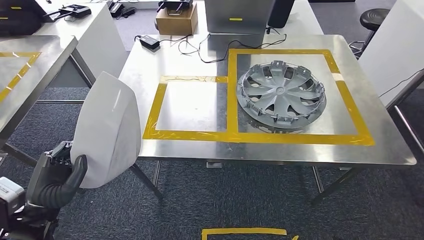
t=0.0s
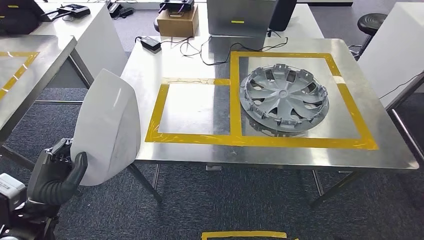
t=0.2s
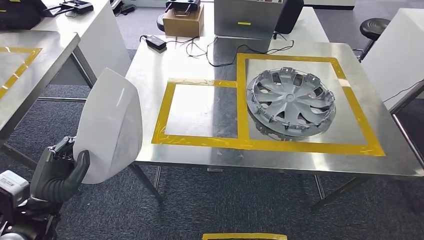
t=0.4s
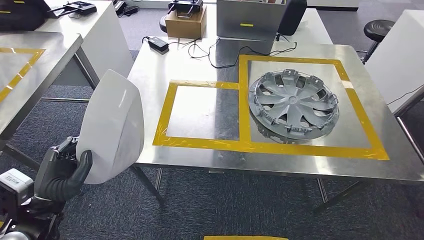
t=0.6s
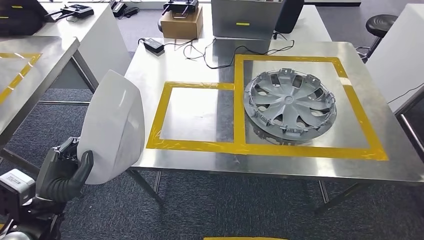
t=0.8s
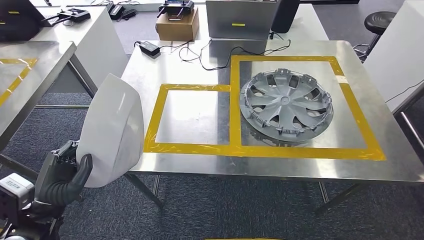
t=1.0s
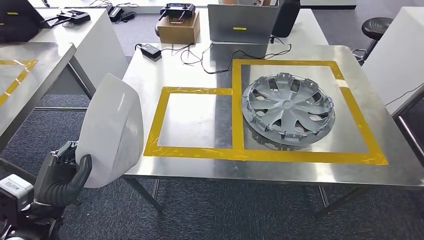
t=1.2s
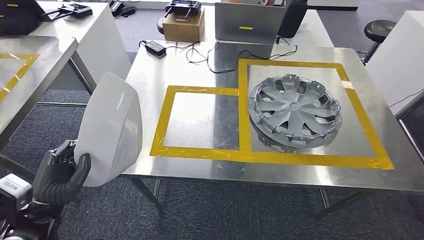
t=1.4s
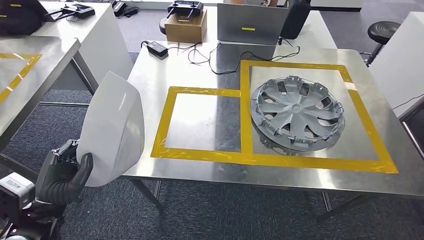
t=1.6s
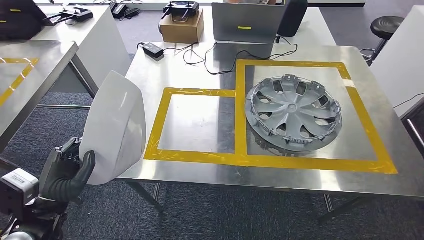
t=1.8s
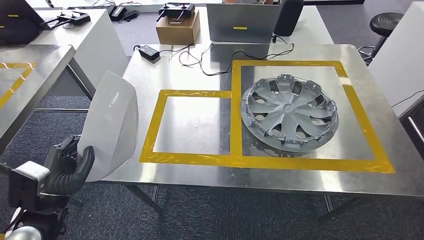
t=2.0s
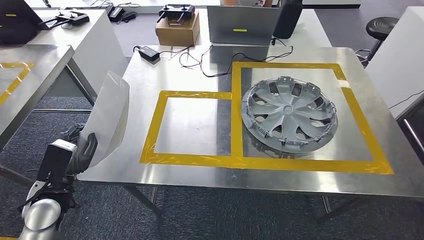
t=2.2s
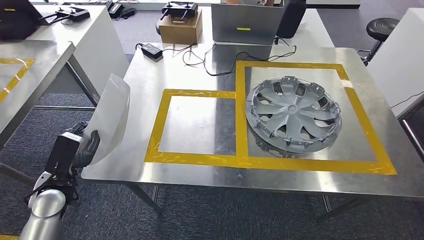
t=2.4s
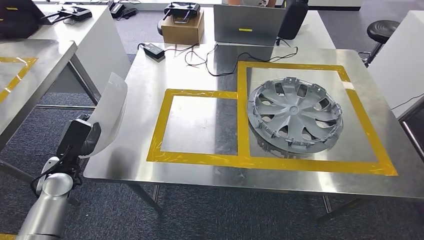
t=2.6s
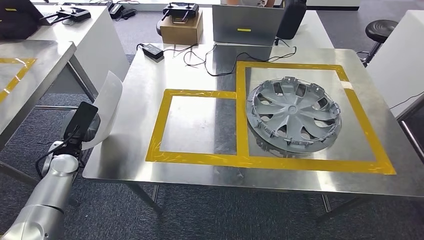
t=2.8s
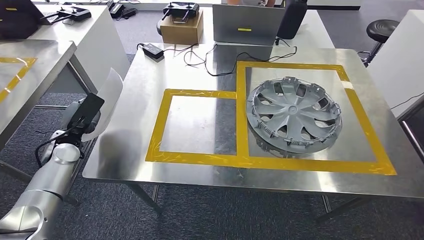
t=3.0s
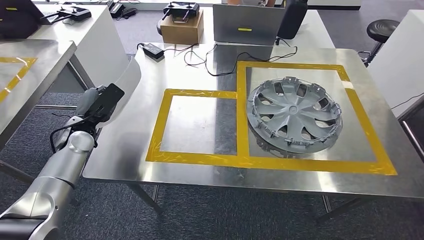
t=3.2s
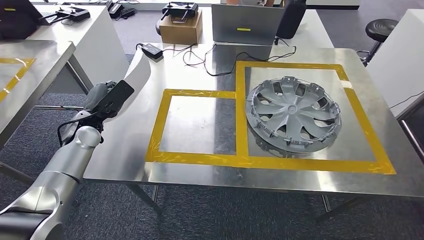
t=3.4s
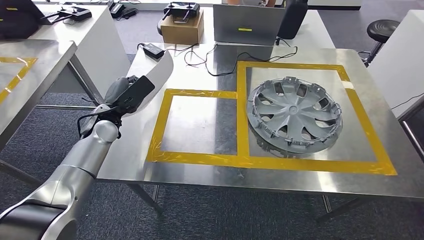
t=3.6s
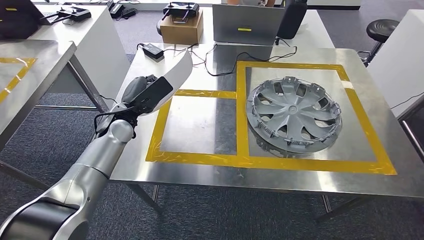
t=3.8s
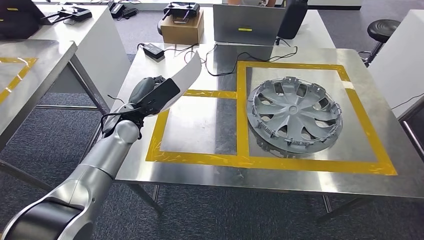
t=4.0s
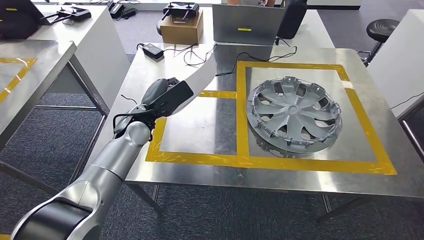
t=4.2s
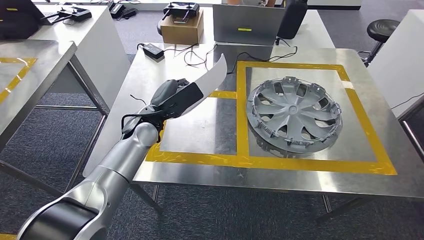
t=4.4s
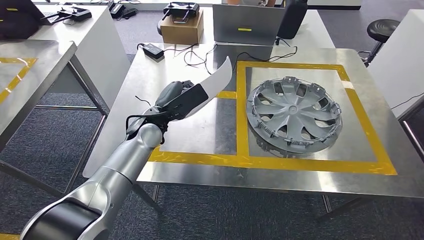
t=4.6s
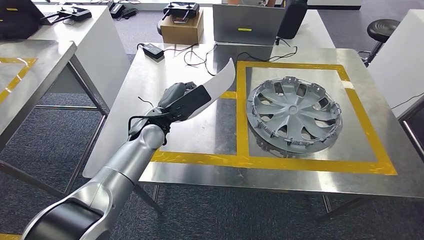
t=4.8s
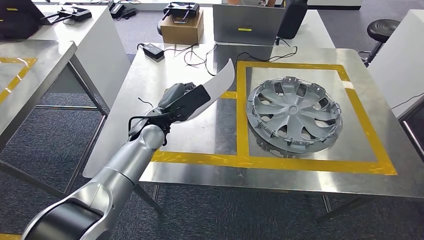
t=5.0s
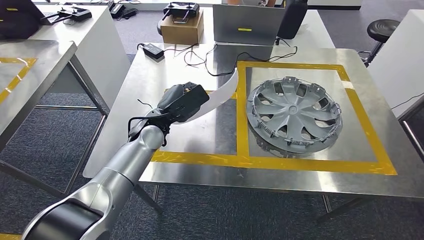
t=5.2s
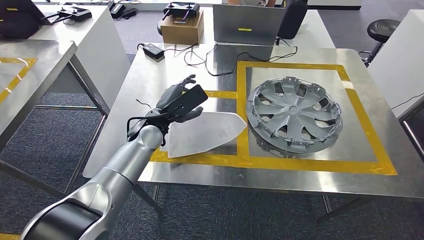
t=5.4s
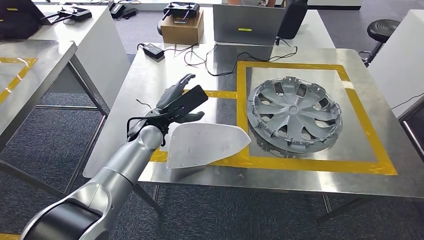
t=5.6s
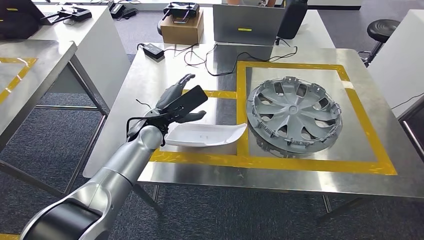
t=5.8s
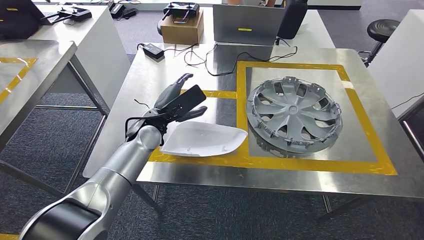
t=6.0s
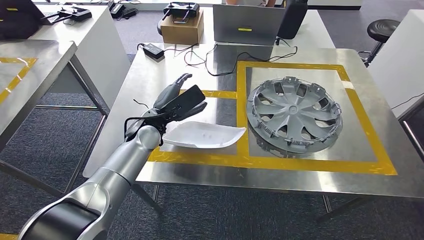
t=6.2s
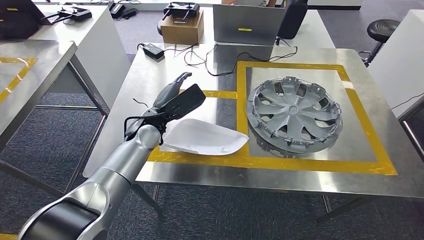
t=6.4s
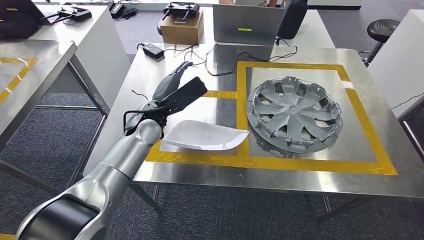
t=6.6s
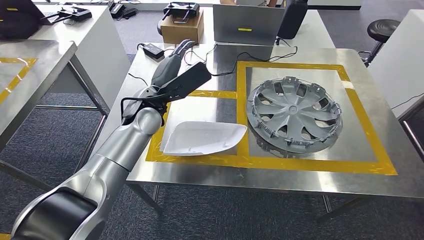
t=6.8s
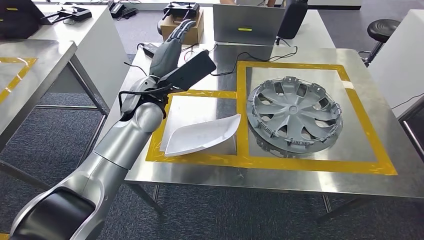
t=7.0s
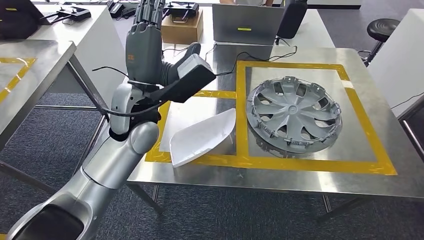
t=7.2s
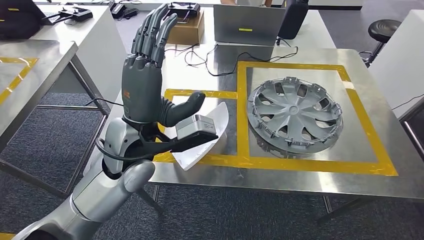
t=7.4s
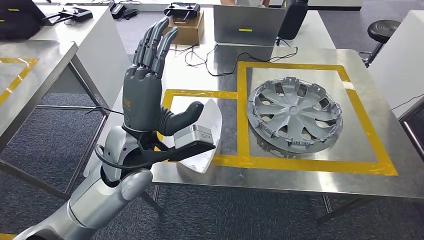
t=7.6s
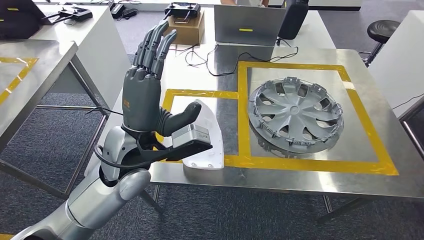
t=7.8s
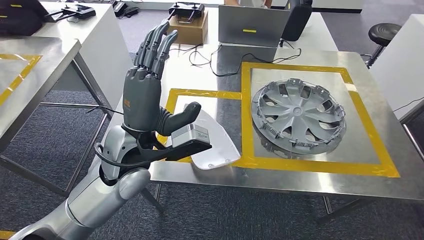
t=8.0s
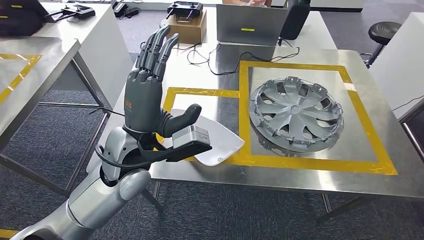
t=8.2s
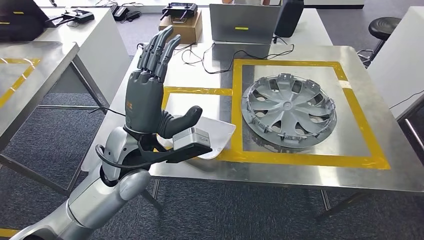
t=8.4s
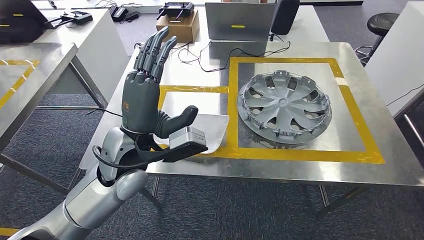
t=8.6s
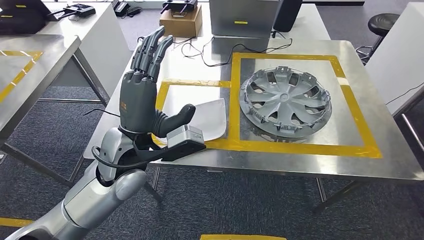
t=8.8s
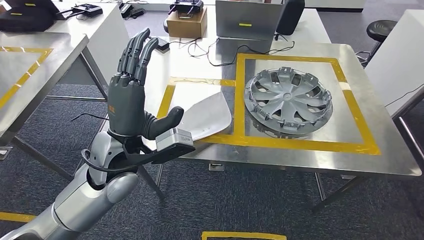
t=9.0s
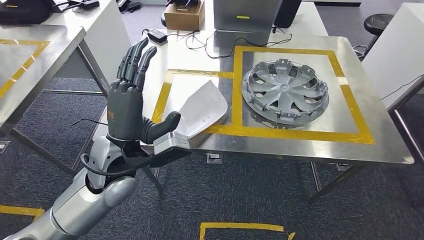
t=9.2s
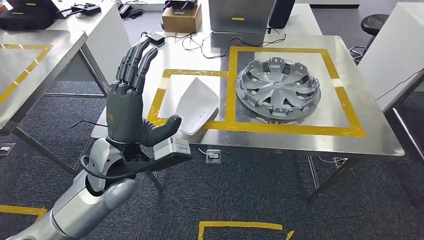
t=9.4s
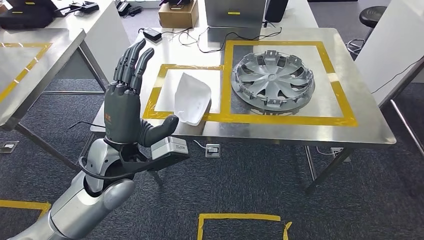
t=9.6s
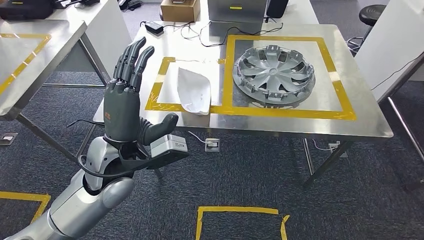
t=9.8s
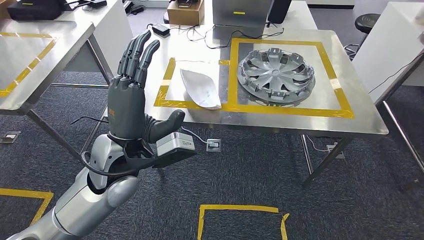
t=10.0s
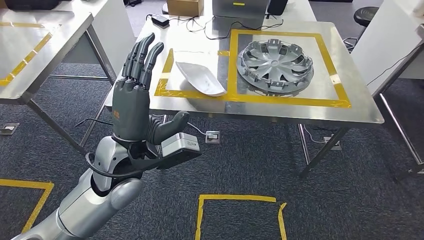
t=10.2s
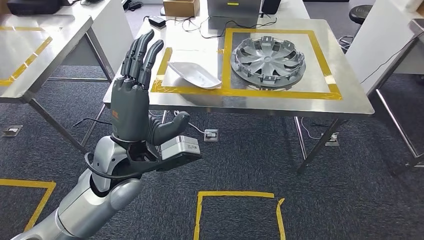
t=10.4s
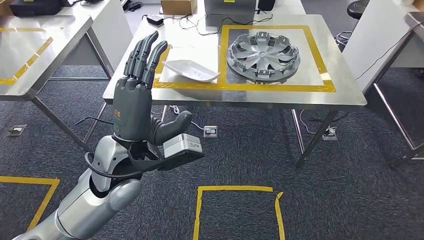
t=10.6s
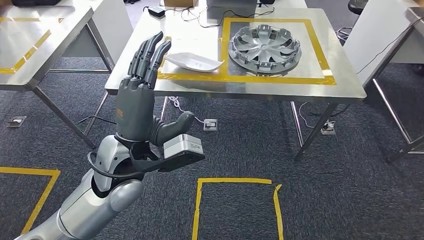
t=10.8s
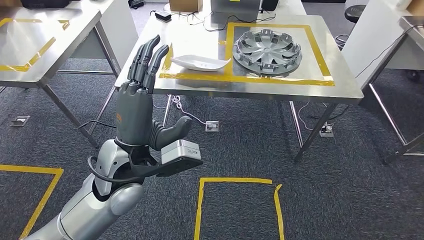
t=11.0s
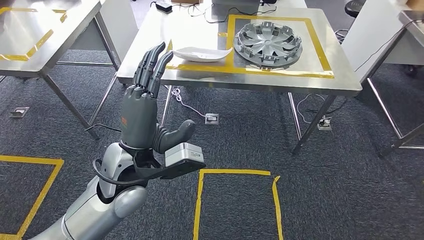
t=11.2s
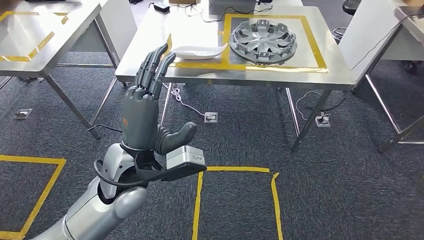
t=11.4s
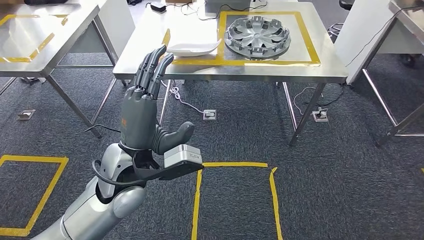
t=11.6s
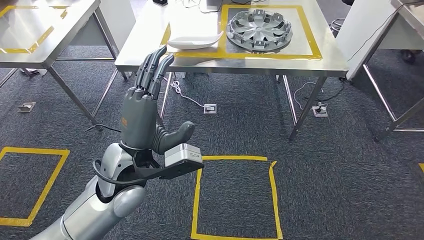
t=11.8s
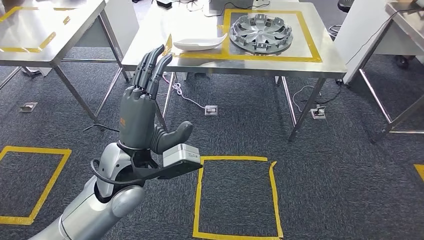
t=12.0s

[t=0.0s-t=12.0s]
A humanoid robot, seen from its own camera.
Step, t=0.0s to t=2.4s: Move the large material to the workbench.
Step, t=2.8s to t=7.2s: Insert the large material into the corresponding slot on the workbench.
t=3.0s to t=4.4s: The left hand goes about 25 cm to the right.
t=4.4s to t=6.0s: The hands make only small movements.
t=6.0s to t=7.6s: The left hand is displaced upward and backward by some 10 cm.

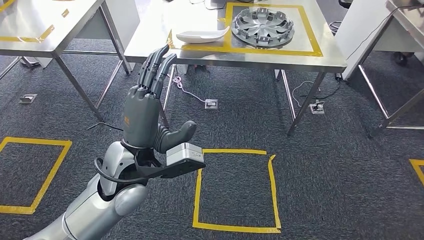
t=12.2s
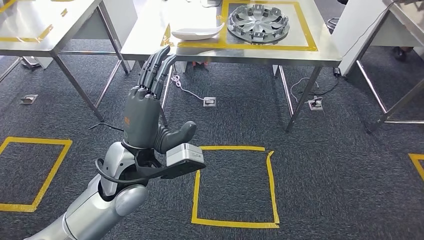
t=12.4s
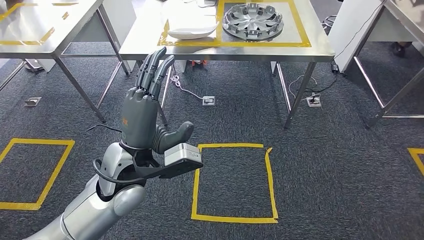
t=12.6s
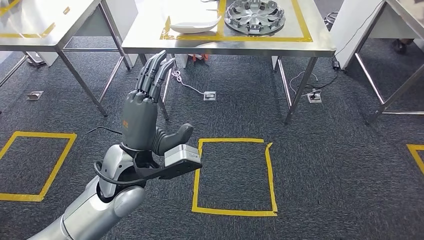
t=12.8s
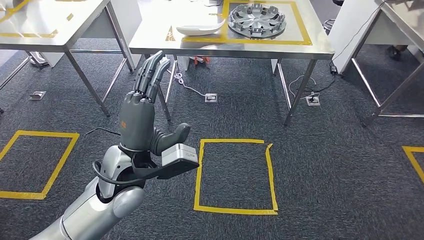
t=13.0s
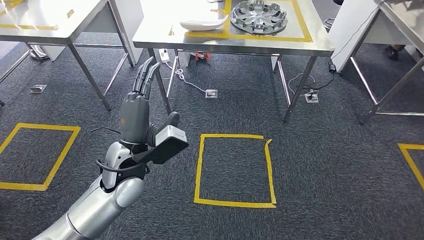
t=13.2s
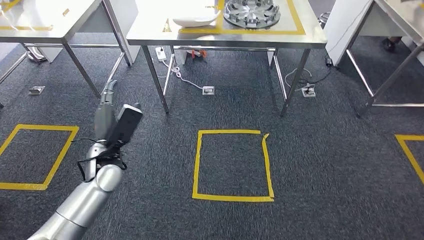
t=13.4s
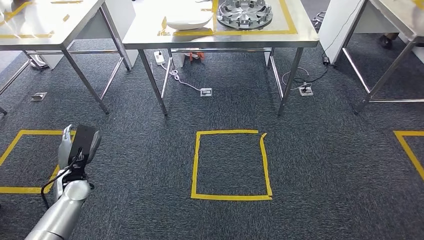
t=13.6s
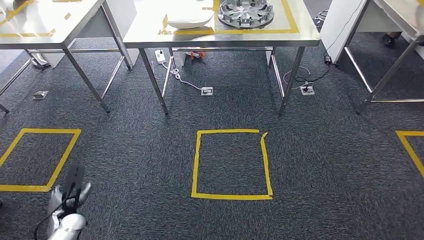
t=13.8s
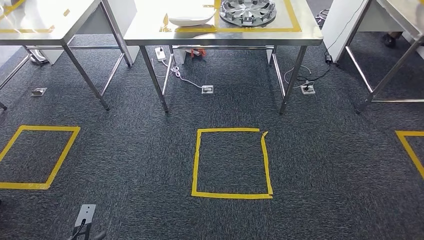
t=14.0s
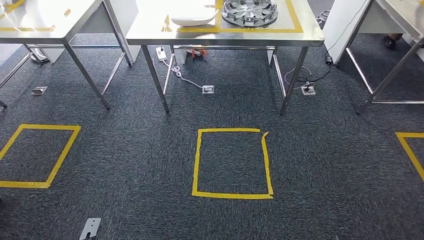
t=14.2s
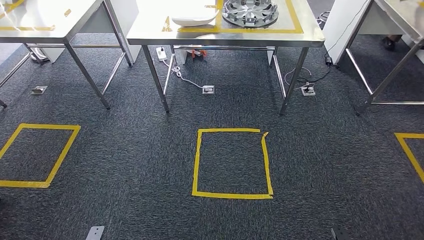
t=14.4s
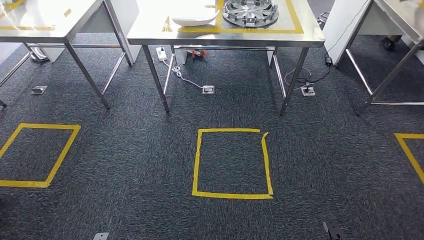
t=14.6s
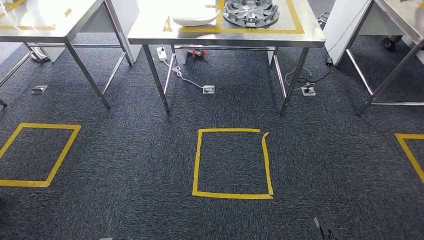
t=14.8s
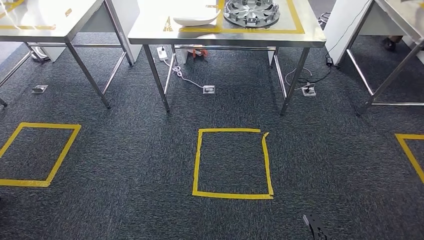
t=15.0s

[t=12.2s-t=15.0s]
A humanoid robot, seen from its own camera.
Step, t=12.2s to t=15.0s: Return to the initial position at the shelf.

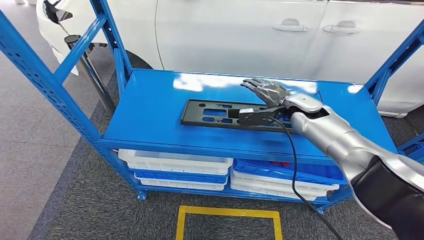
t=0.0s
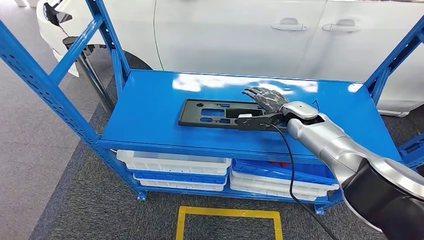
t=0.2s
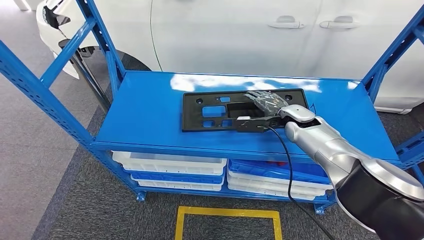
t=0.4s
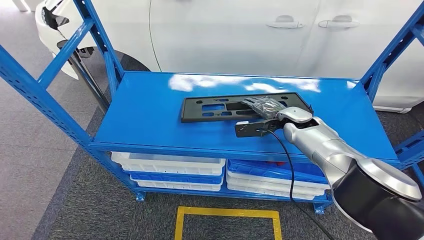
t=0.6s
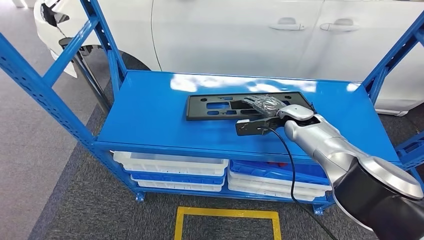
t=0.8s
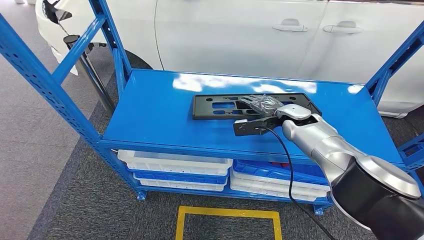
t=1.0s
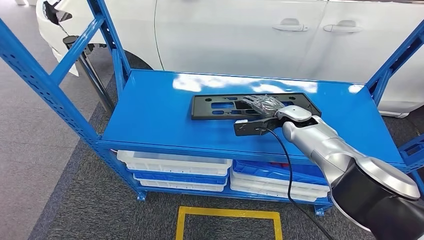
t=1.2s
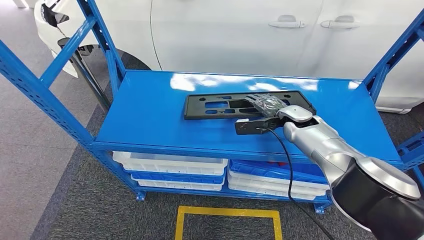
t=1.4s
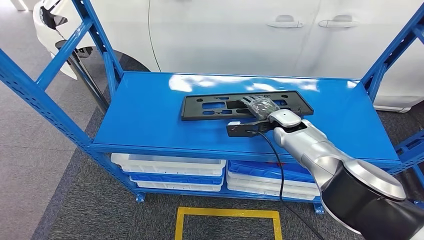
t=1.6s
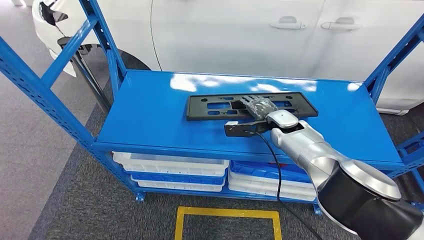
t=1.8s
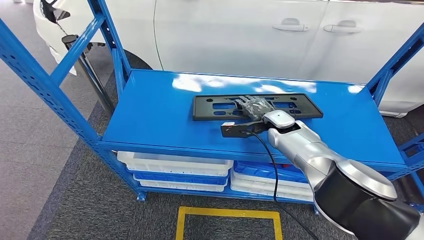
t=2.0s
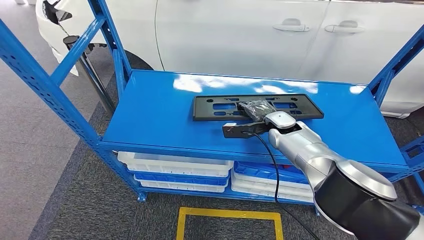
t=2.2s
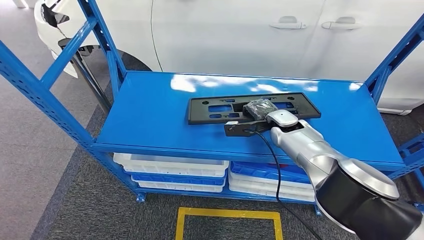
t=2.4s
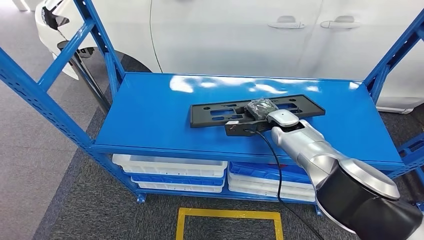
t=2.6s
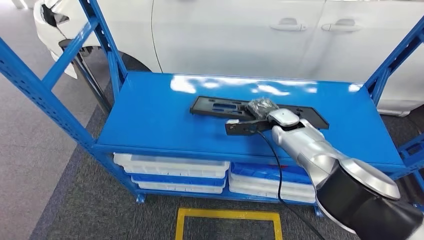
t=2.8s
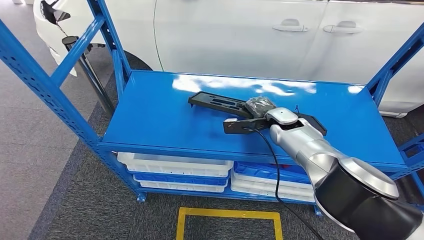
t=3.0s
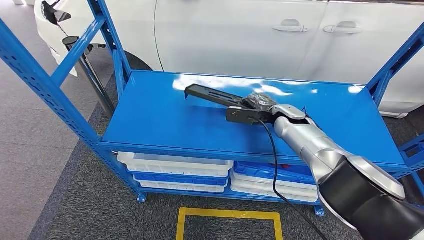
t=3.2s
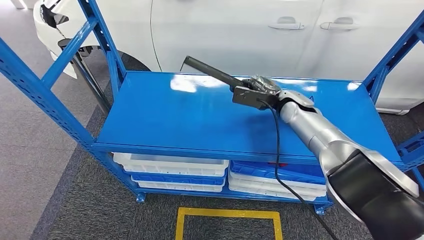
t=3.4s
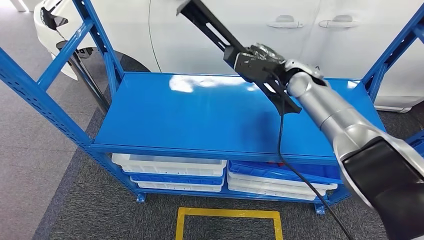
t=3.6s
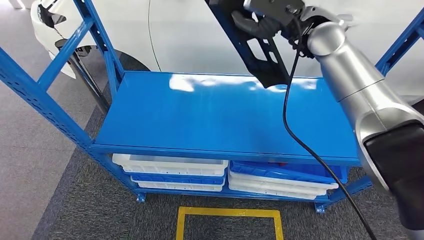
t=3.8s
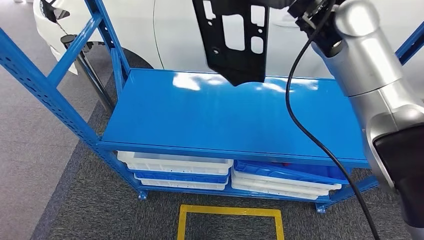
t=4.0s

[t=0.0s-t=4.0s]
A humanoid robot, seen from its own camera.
t=1.4s to t=2.6s: There are only small adjustments of the hands.
